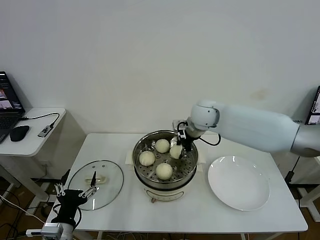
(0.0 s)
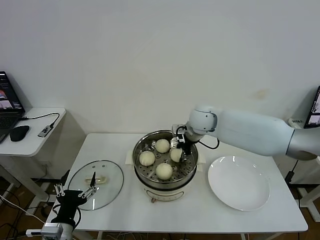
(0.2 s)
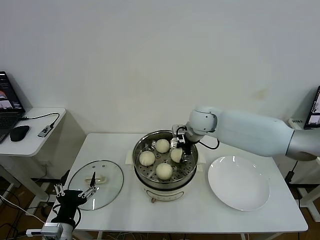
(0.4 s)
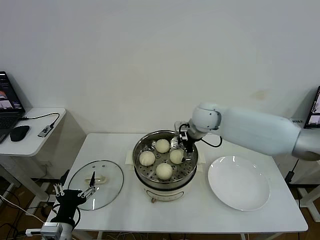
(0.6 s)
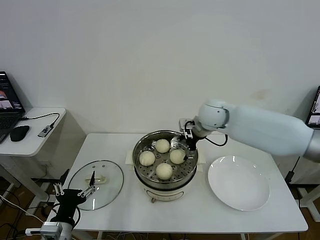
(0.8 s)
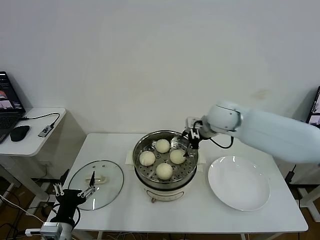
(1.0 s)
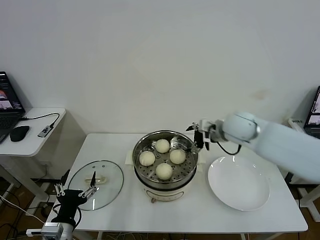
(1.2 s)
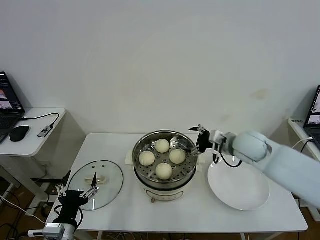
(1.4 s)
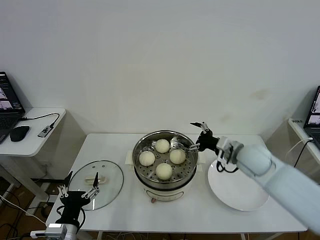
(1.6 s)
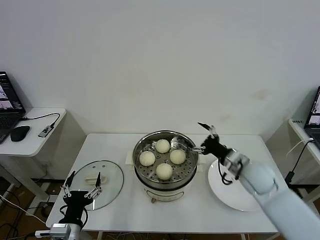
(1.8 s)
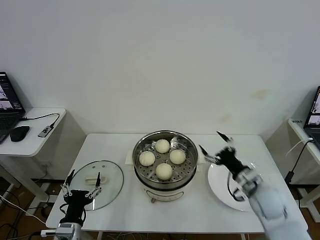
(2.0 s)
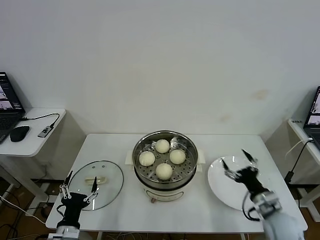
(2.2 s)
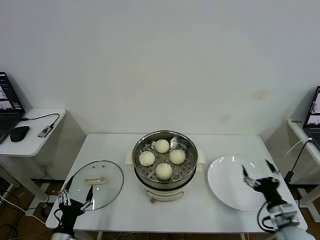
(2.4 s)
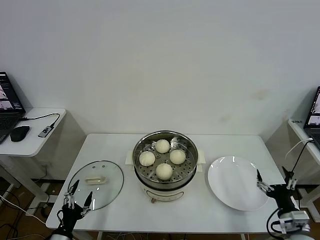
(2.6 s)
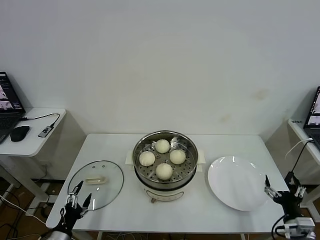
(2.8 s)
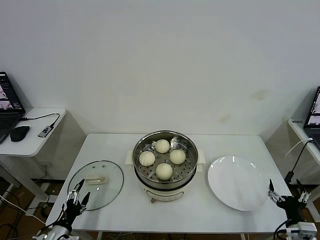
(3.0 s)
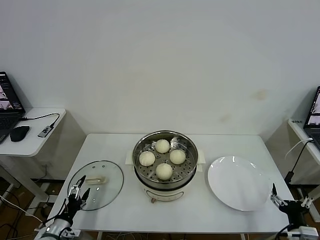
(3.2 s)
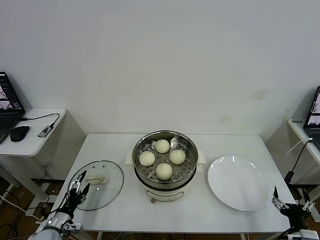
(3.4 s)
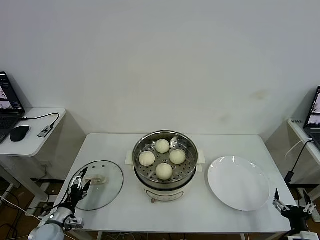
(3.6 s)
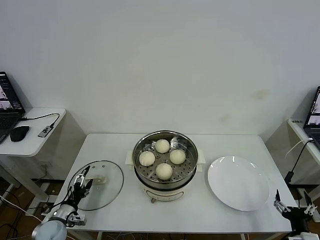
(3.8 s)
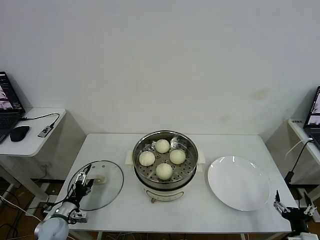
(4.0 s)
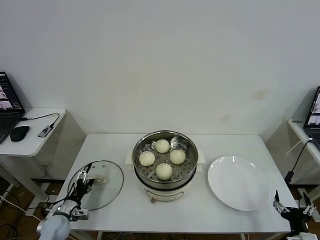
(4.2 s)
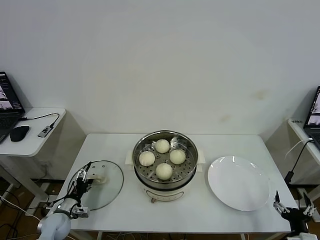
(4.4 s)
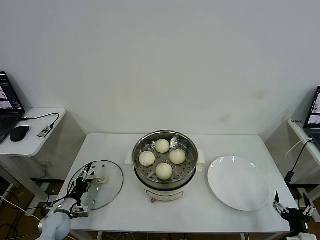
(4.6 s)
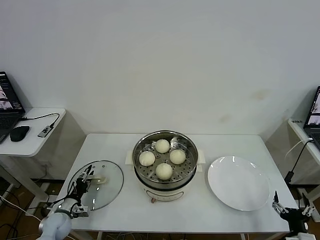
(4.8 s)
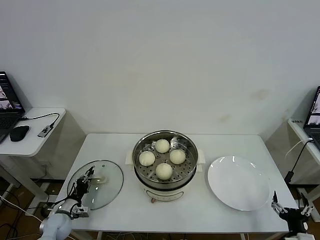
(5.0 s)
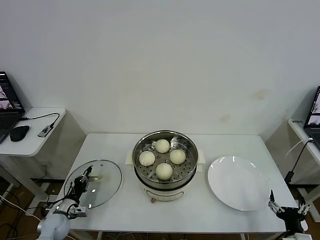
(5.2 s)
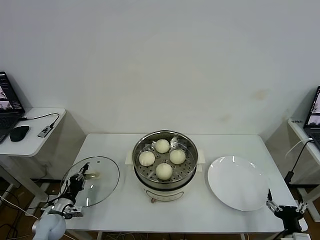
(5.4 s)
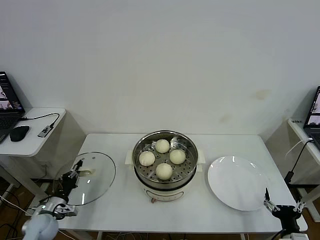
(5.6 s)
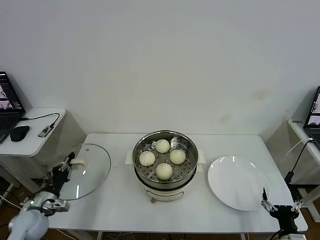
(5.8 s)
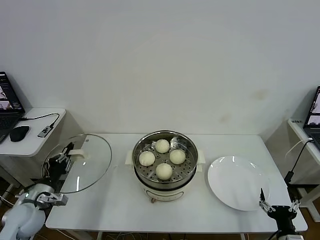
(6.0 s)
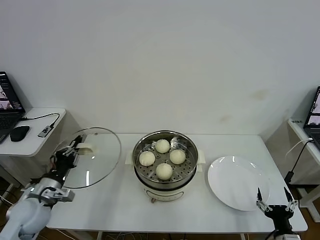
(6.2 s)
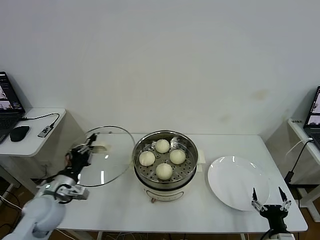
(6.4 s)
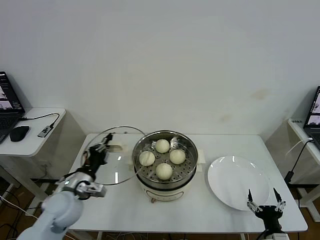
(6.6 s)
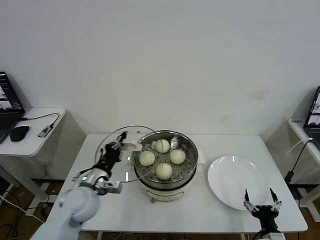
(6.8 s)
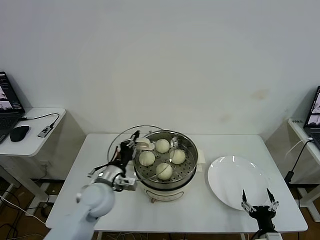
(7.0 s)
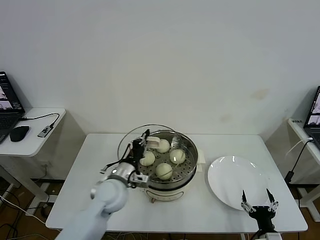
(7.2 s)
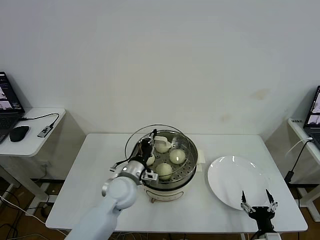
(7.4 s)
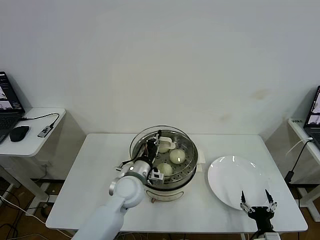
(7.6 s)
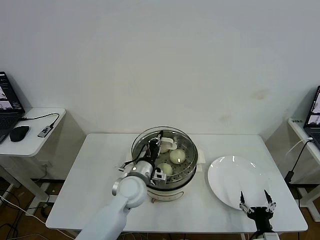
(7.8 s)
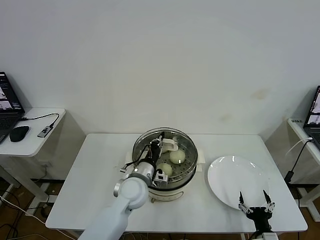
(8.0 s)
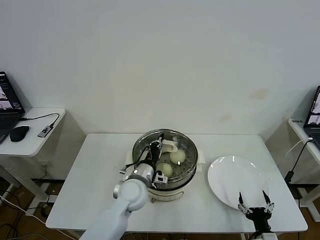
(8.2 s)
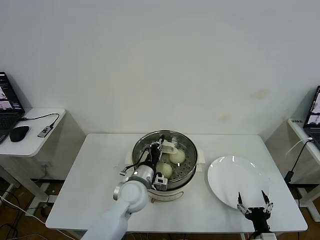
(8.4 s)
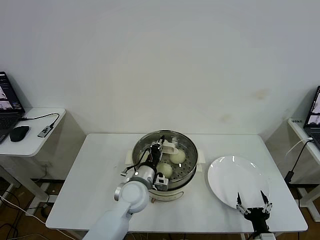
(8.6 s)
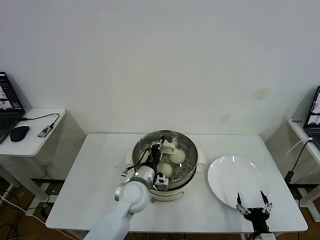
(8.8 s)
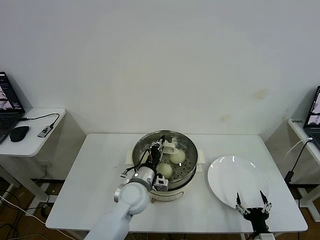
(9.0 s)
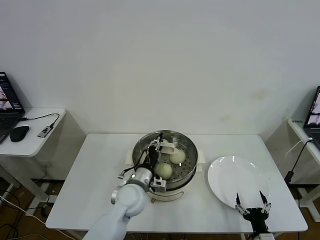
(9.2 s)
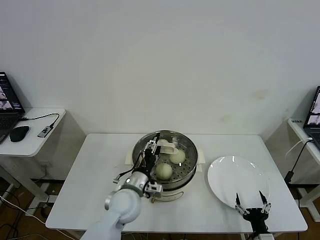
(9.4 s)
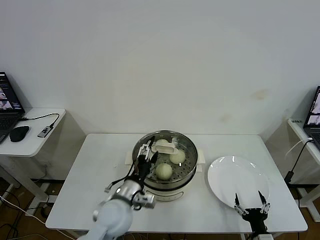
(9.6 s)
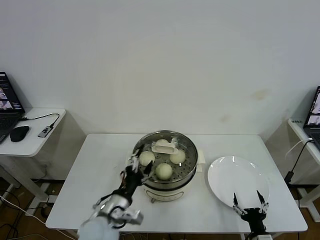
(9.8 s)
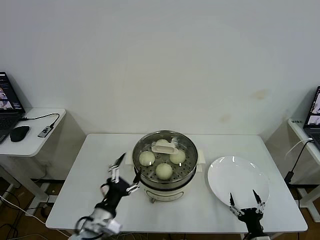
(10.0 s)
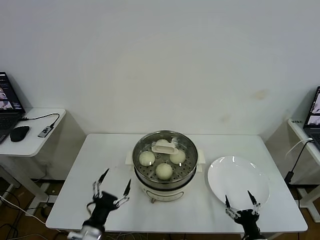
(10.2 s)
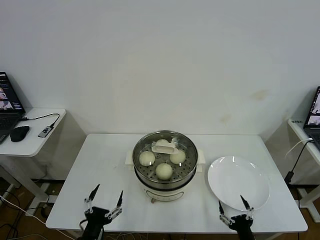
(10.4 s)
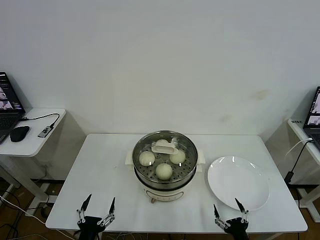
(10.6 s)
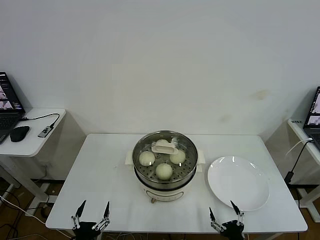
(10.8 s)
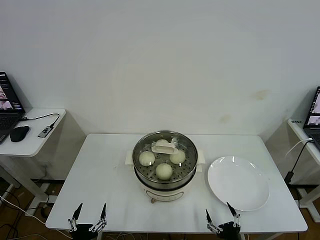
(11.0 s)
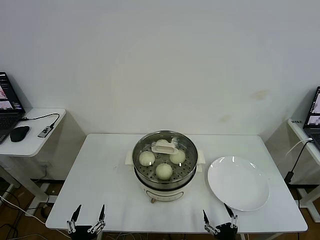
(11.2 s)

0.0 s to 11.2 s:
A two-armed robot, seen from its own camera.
Task of the whole recording: take steamed baozi put them in steamer then cover it.
Step, 0.8 to 5.2 s: Grasp the pot lid with left gripper.
Step, 5.4 to 9.4 s: Place the pot lid on the steamer with left gripper.
0.0 to 1.6 s: The right gripper shifts roughly 20 cm to the right, backward and downward, and opens.
1.6 to 3.2 s: The left gripper goes approximately 15 cm downward and to the left. Meanwhile the right gripper travels backward, downward and to the right by some 35 cm.
3.2 to 4.8 s: The left gripper goes roughly 10 cm forward, and closes up.
4.8 to 6.4 s: The left gripper travels upward by some 20 cm, and closes.
6.4 to 8.0 s: The left gripper travels to the right by about 25 cm.
8.0 to 9.6 s: The left gripper moves backward, roughly 5 cm, and opens.
9.6 to 11.2 s: The right gripper heads to the left, covering roughly 5 cm, while the left gripper moves backward, to the left and downward, some 30 cm.
